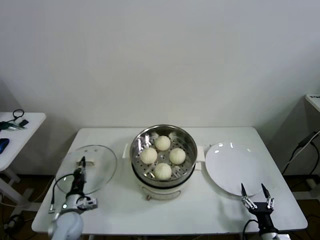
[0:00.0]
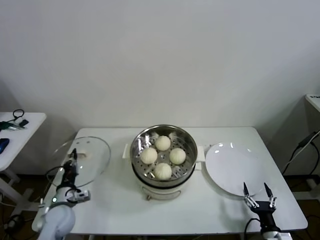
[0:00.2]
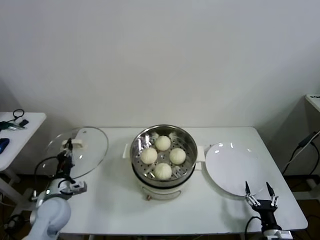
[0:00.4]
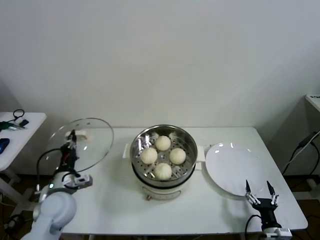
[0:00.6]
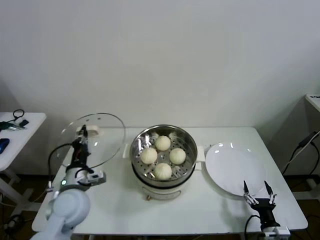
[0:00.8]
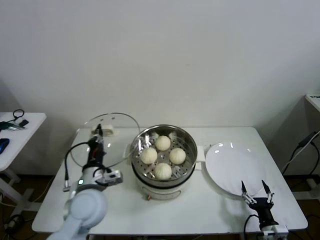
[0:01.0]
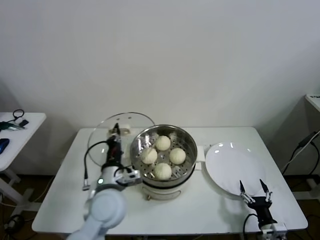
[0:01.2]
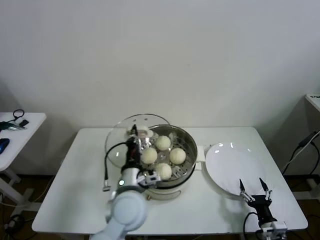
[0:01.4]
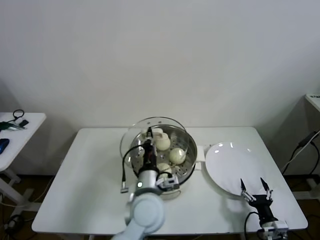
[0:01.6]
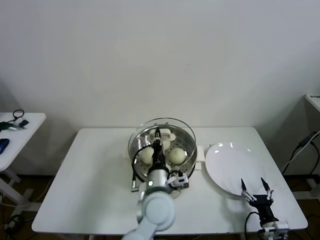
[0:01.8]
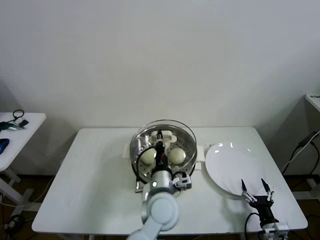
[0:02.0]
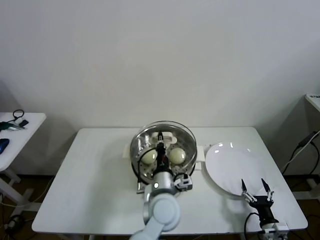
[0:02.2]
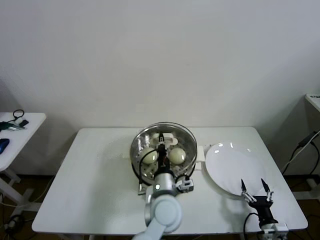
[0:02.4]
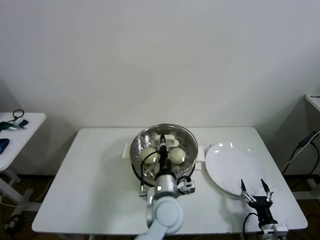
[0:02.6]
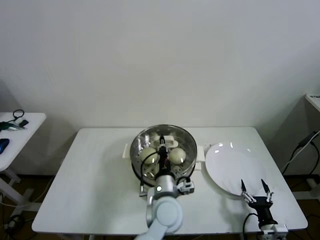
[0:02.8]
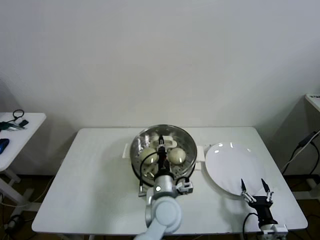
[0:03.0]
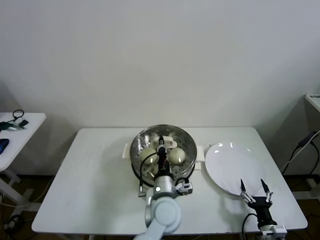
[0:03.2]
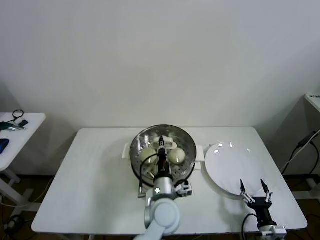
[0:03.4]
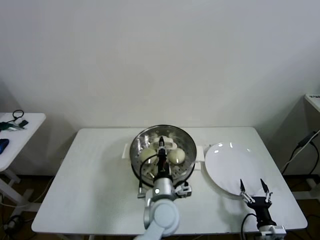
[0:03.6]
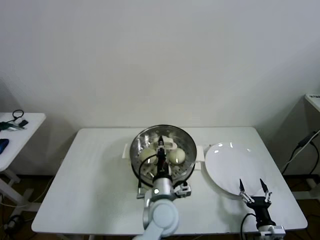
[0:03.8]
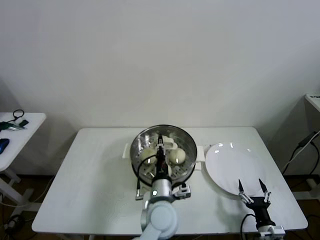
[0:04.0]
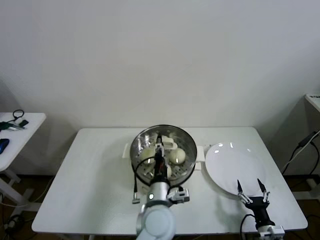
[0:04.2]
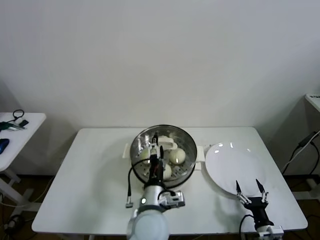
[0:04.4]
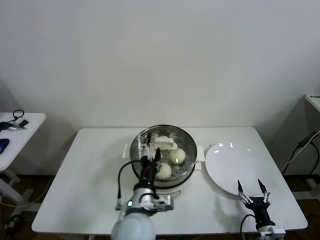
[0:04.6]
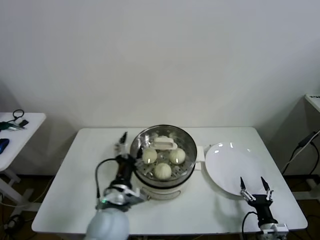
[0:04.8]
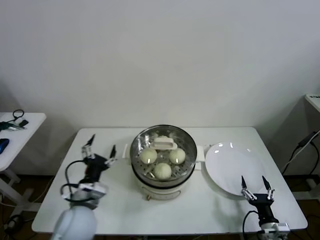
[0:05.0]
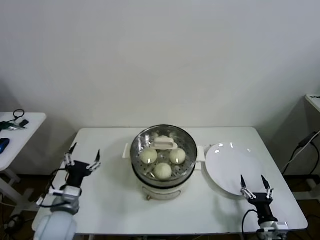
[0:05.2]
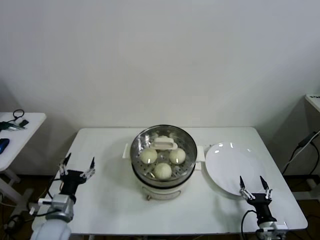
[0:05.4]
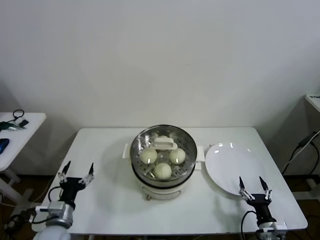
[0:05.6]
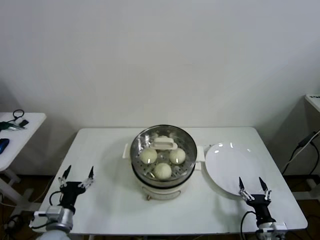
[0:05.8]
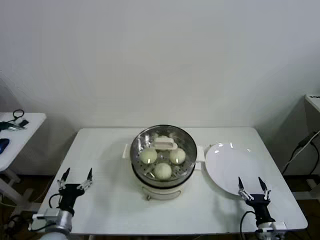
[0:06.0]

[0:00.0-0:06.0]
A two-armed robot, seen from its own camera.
Task of the whole recording: take steamed baozi put them in steamer then cover it.
Step, 0:00.0 to 0:04.2: Place the pot lid on the steamer with left gripper.
0:00.0 to 0:01.6: The left gripper heads to the right and upward, covering roughly 35 cm.
0:01.6 to 0:03.0: The left gripper is displaced to the right by approximately 5 cm.
0:03.0 to 0:04.4: The left gripper moves roughly 5 cm, and opens up.
0:04.4 to 0:06.0: The left gripper travels to the left by approximately 30 cm.
